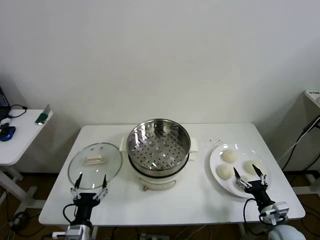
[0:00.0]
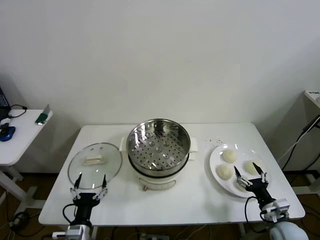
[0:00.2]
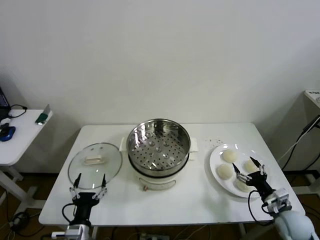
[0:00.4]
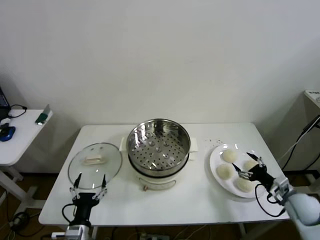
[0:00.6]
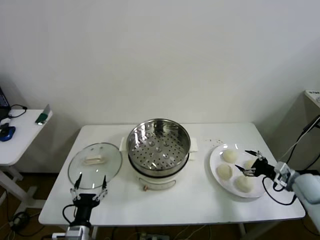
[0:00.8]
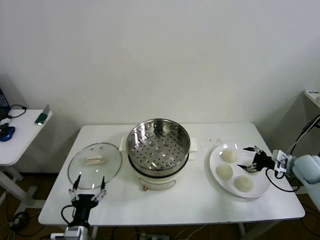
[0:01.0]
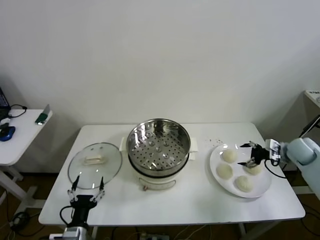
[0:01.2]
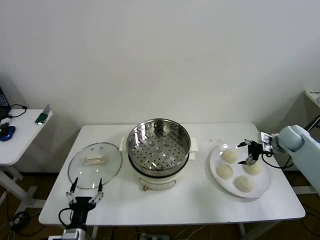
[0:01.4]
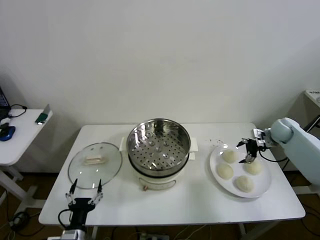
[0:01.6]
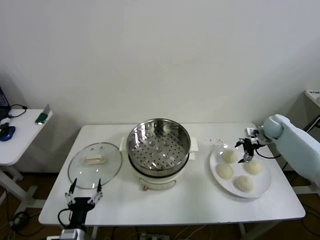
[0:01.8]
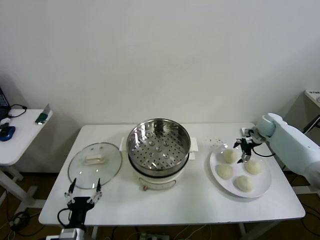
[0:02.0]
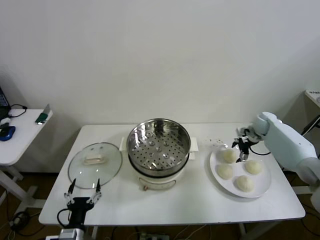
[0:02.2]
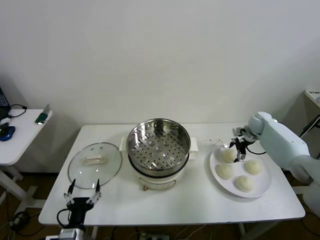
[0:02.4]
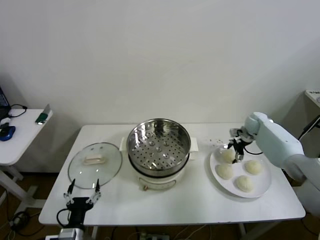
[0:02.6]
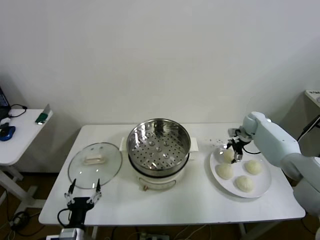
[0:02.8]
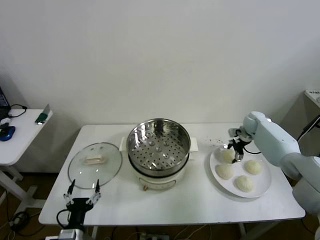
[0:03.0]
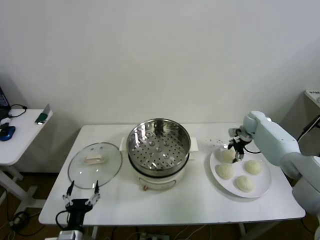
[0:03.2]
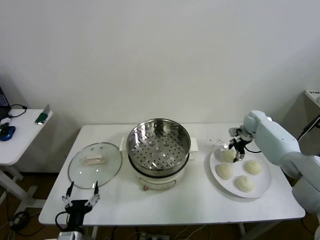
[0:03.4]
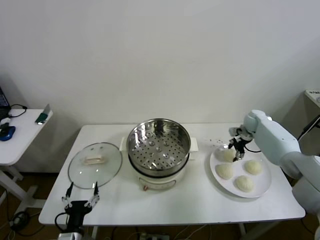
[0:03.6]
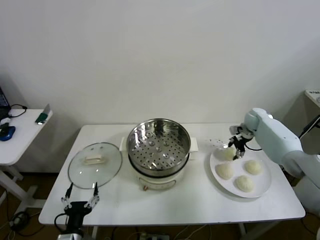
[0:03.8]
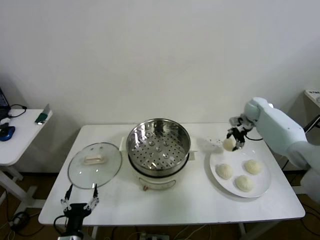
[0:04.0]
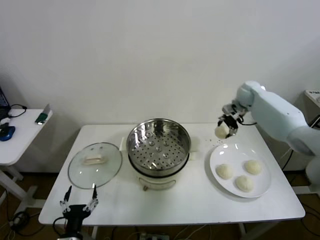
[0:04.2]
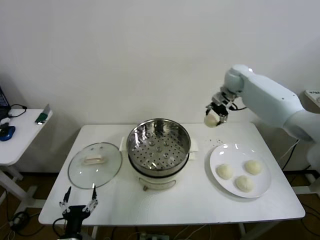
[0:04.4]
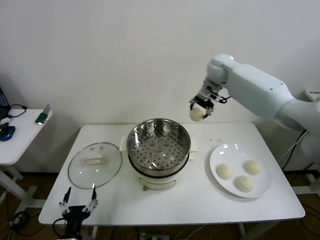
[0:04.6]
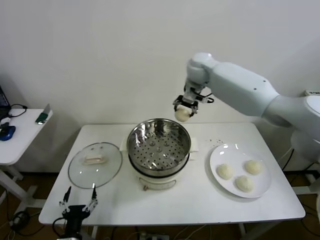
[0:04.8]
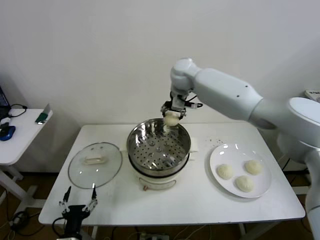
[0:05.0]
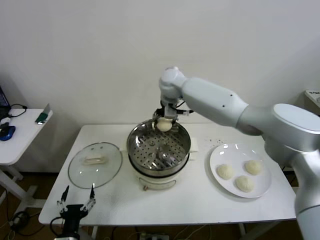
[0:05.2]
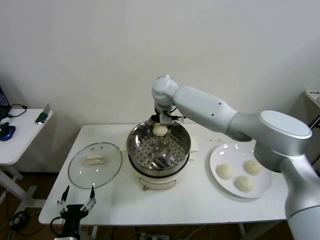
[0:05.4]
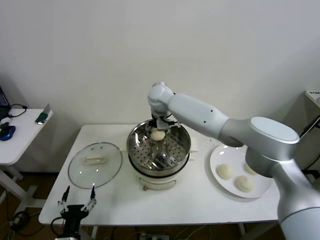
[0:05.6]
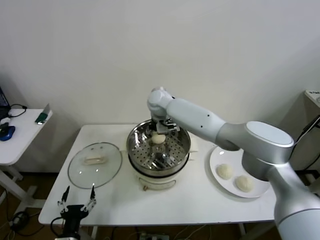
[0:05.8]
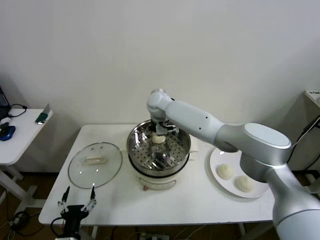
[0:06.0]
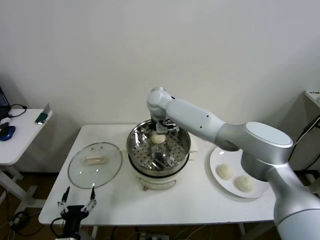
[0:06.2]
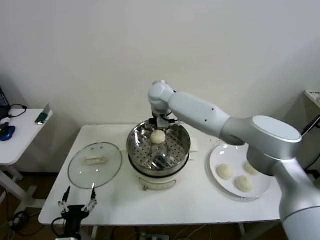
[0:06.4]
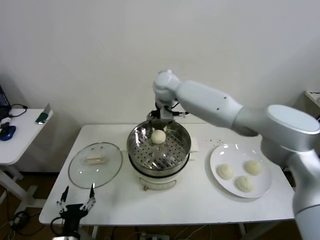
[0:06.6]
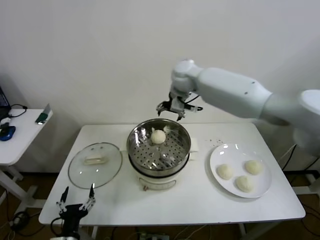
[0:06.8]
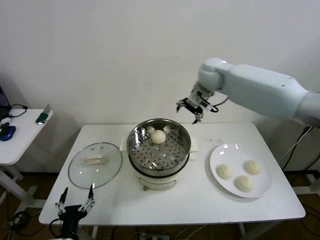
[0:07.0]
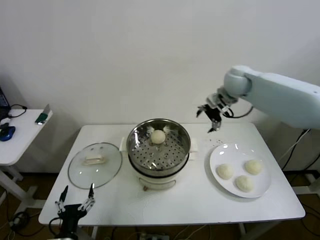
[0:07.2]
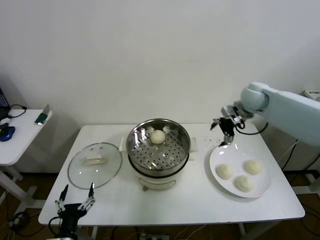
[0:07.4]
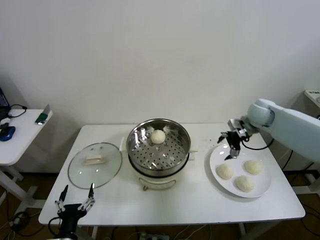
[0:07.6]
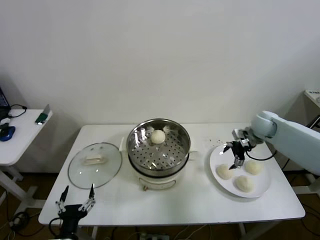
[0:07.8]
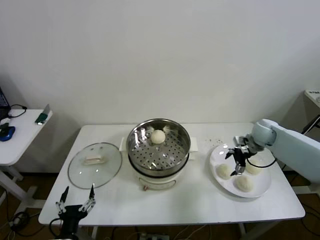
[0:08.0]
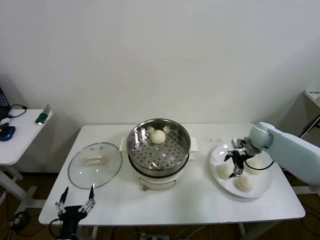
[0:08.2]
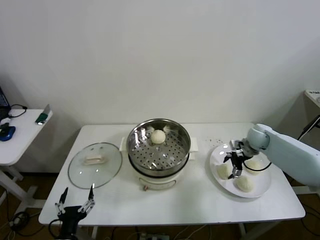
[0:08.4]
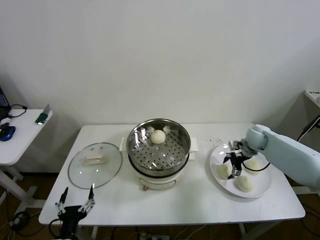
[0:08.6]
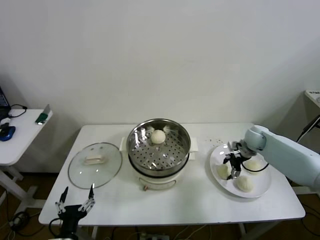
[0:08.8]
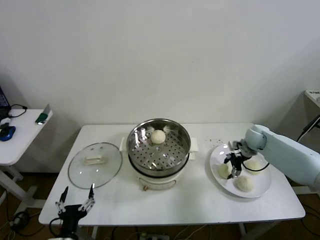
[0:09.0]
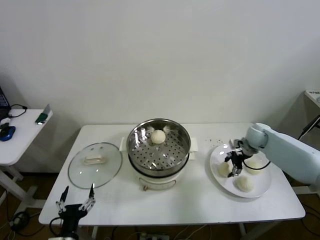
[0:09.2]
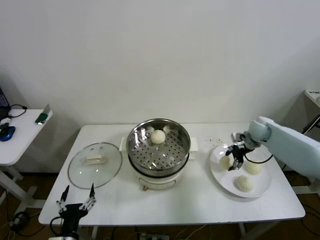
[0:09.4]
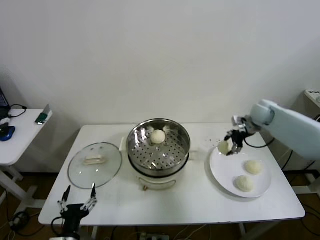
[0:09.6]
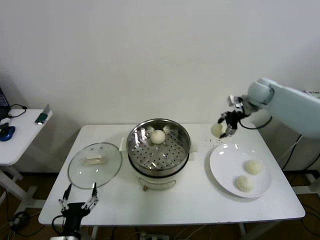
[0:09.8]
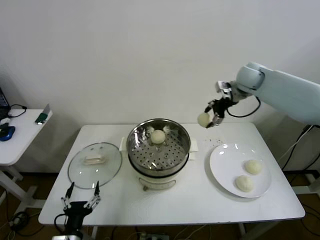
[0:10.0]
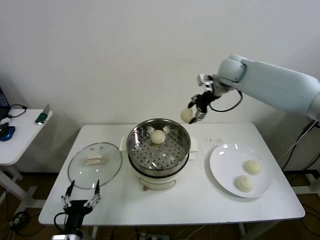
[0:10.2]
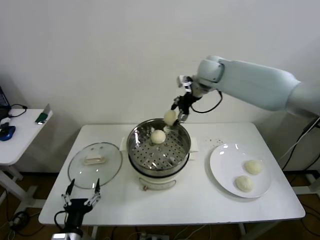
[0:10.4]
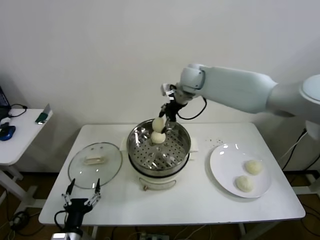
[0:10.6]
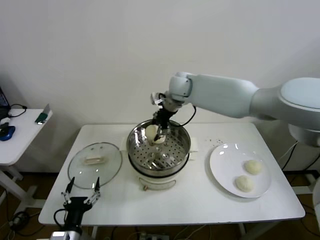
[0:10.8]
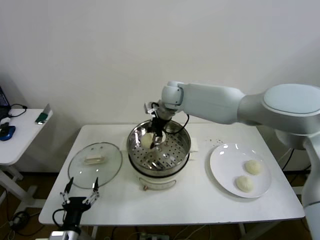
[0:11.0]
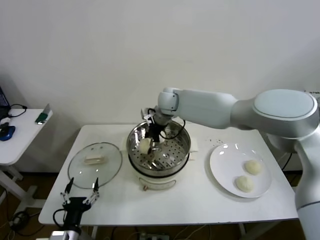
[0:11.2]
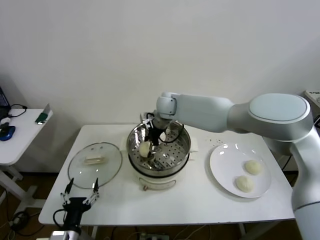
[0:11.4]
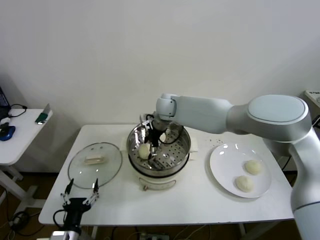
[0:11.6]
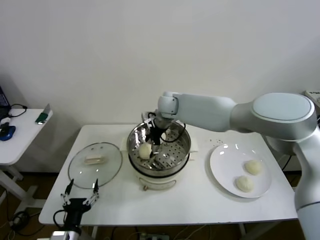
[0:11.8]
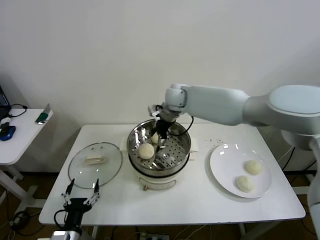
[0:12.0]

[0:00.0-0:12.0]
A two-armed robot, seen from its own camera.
Step, 0:00.0 to 0:03.4: Grasp the baozi in the plate with right gripper.
Step, 0:03.6 to 0:06.2: Place the baozi on the steamer with right gripper.
Step, 0:06.4 to 0:09.2: Grasp the baozi in the plate with right gripper.
Step, 0:09.4 to 0:12.0: Place the baozi on the steamer with right gripper.
0:01.6 to 0:03.0: The right gripper goes some 10 cm to the left and forward, and closes.
0:03.0 to 0:04.4: The right gripper heads upward and to the left, covering about 25 cm, and closes up.
0:04.4 to 0:06.0: The right gripper shifts roughly 25 cm to the left, and opens.
0:06.0 to 0:07.6: The right gripper is displaced to the right by approximately 40 cm.
0:07.6 to 0:09.0: The right gripper is displaced downward by roughly 10 cm, and closes its fingers.
0:09.0 to 0:10.4: The right gripper goes about 35 cm upward and to the left.
0:10.4 to 0:12.0: The right gripper moves to the left and downward, roughly 10 cm, and opens up.

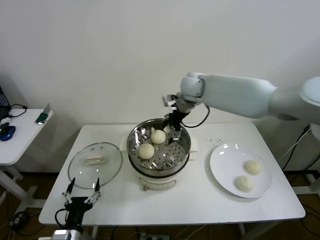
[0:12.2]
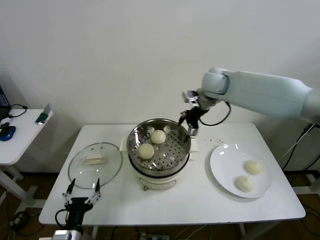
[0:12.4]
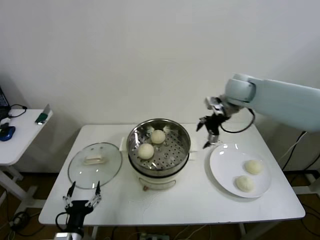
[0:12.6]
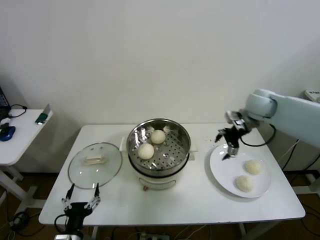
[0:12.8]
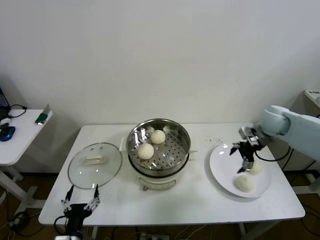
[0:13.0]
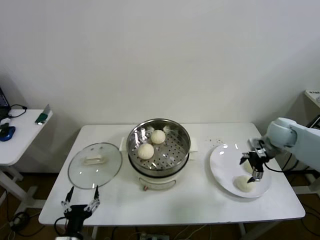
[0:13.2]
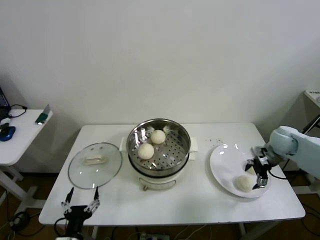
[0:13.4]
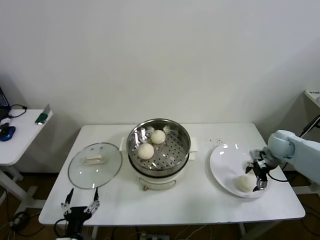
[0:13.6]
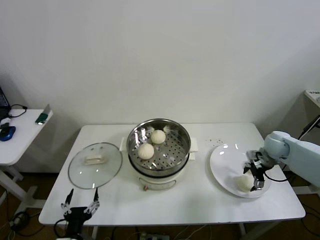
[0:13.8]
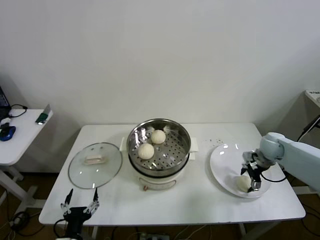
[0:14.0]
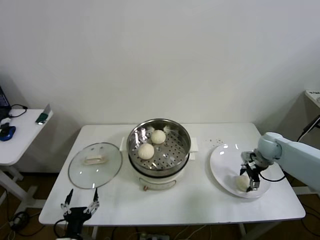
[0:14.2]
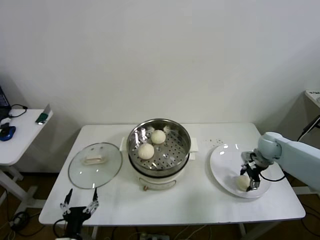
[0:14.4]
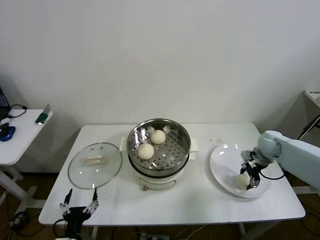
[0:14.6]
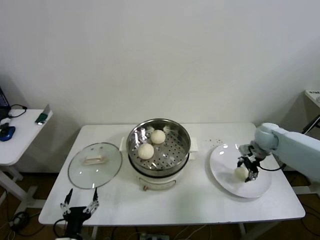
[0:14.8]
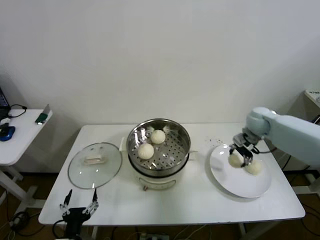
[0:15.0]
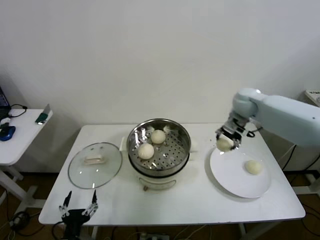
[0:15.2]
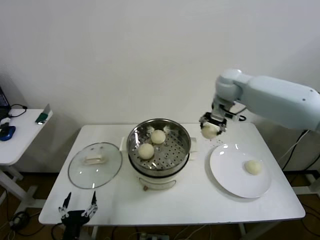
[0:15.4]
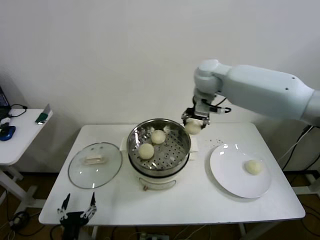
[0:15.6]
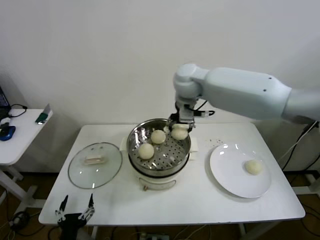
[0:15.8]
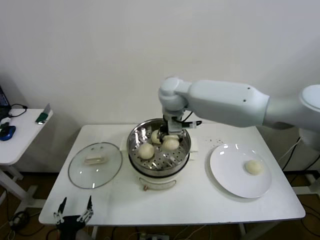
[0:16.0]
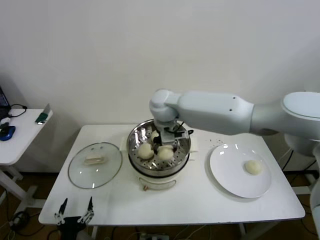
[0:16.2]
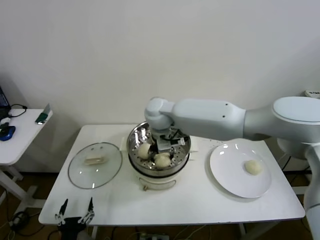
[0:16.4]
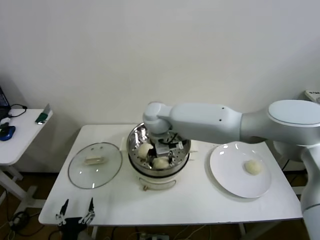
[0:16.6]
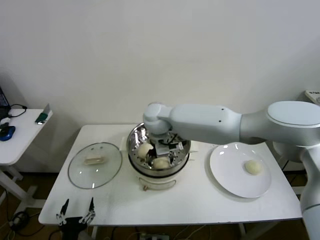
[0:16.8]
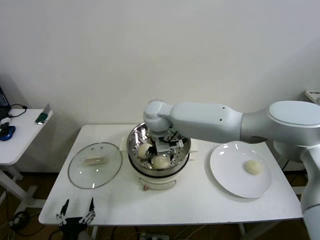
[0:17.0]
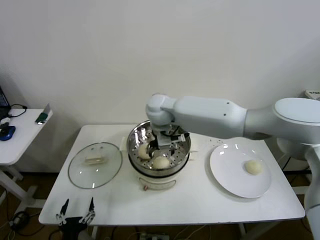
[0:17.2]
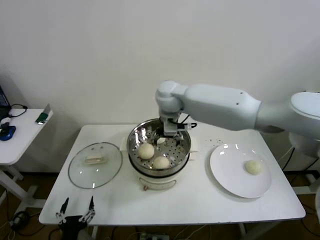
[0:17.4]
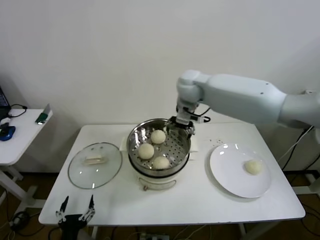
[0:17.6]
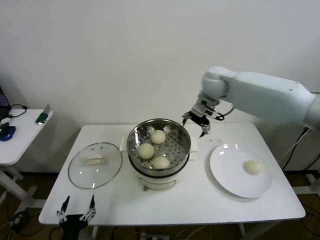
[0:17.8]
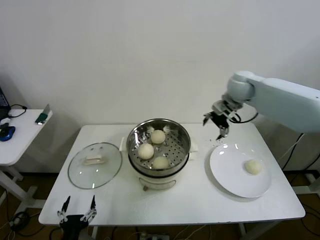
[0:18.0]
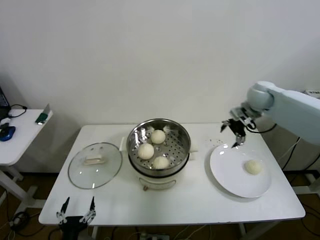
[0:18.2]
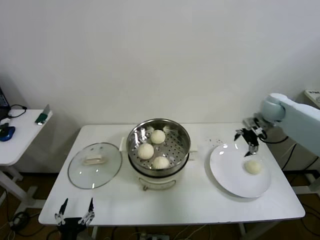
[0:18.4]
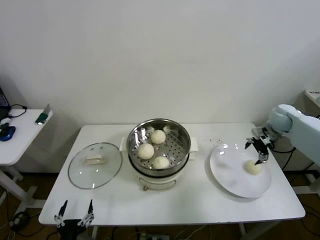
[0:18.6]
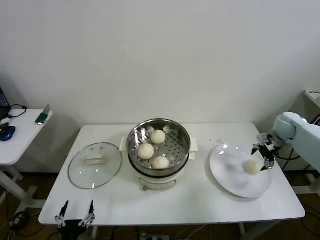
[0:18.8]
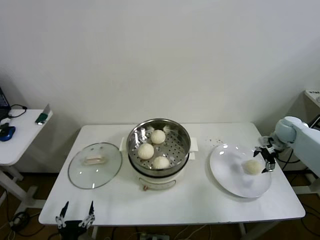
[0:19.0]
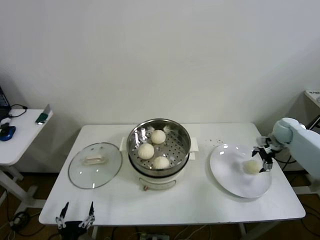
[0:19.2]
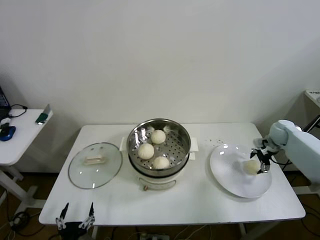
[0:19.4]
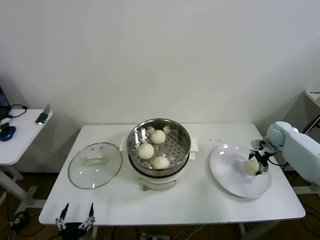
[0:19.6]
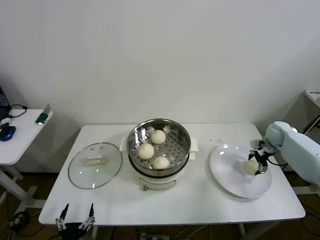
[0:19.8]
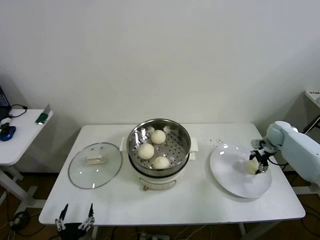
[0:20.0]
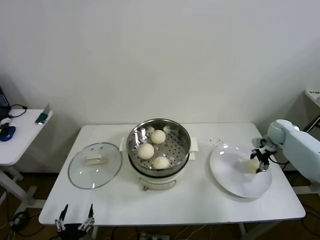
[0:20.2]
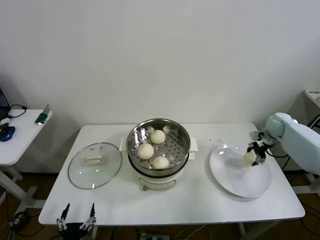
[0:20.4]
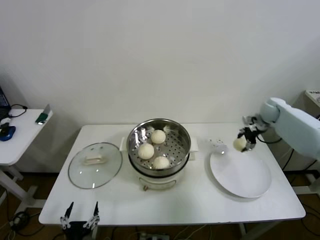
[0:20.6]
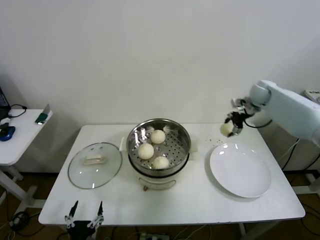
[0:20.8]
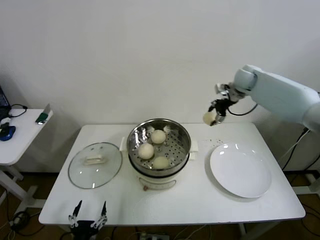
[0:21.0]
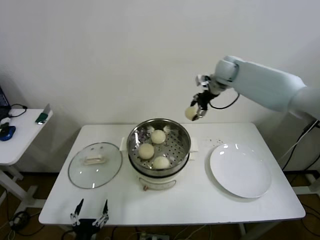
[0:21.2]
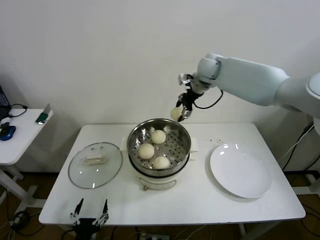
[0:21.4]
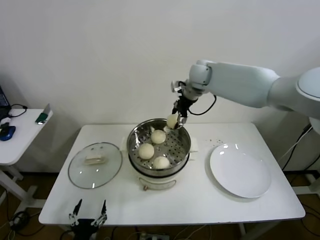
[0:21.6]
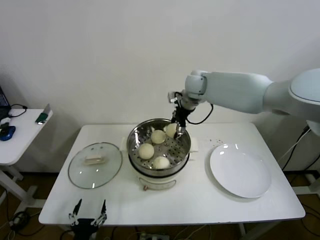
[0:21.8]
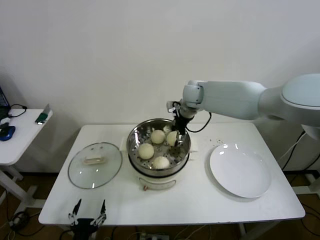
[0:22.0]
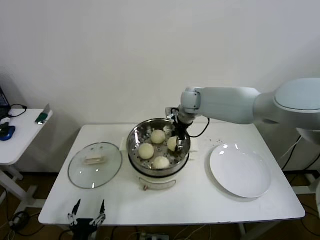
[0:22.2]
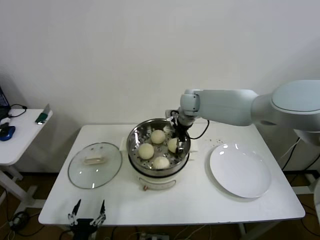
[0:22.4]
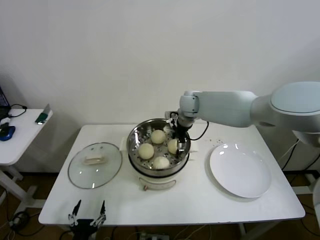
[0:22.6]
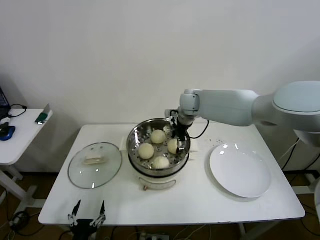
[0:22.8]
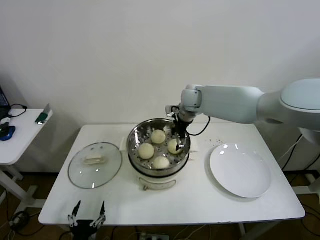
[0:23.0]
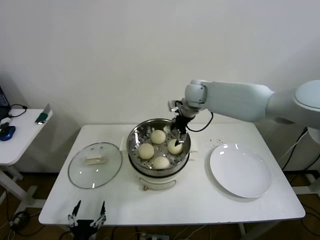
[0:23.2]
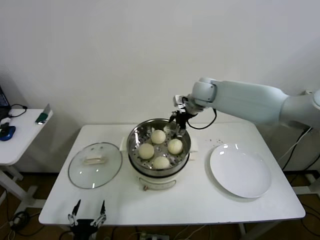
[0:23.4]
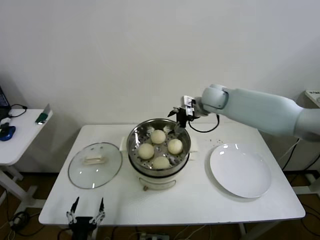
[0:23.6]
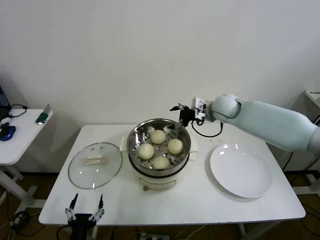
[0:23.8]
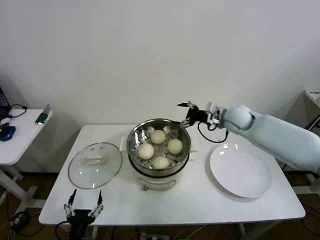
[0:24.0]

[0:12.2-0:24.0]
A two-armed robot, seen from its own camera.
Step, 0:12.2 to 0:14.4: Grasp the baozi in the plate with right gripper.
Step, 0:14.6 to 0:17.2: Place the baozi on the steamer with right gripper.
Step, 0:17.4 to 0:19.8: Grasp the baozi in the plate with right gripper.
Step, 0:20.2 to 0:23.2: Place the baozi on the steamer with right gripper.
0:12.2 to 0:13.6: The right gripper goes approximately 35 cm to the right and downward.
0:13.6 to 0:15.2: The right gripper moves to the left, upward and forward, approximately 25 cm, and closes.
0:15.2 to 0:16.6: The right gripper shifts about 30 cm to the left.
0:16.6 to 0:18.2: The right gripper shifts about 35 cm to the right, and opens.
0:18.2 to 0:19.6: The right gripper heads downward and to the right, covering some 20 cm.
0:19.6 to 0:21.0: The right gripper heads upward, to the left and forward, covering about 30 cm, and closes.
0:21.0 to 0:22.6: The right gripper moves to the left and downward, about 20 cm, and opens its fingers.
0:22.6 to 0:24.0: The right gripper travels to the right and backward by about 15 cm.
